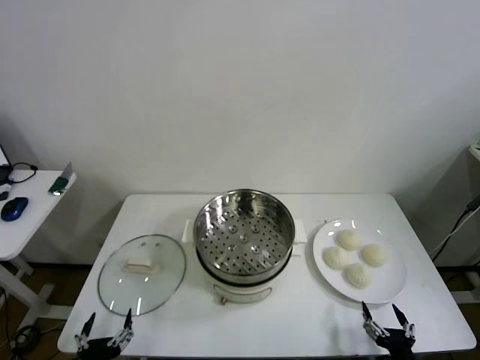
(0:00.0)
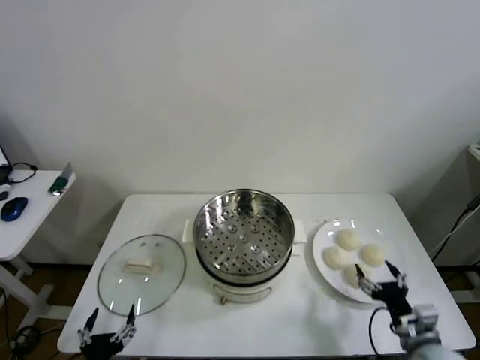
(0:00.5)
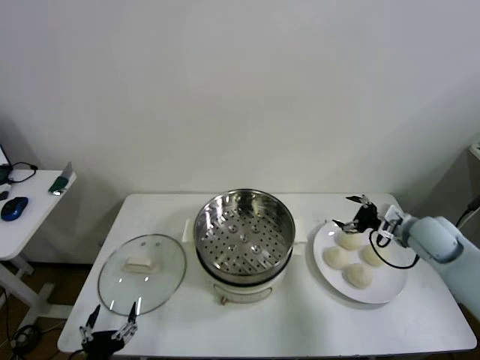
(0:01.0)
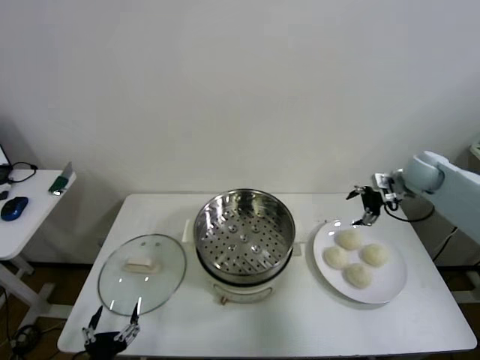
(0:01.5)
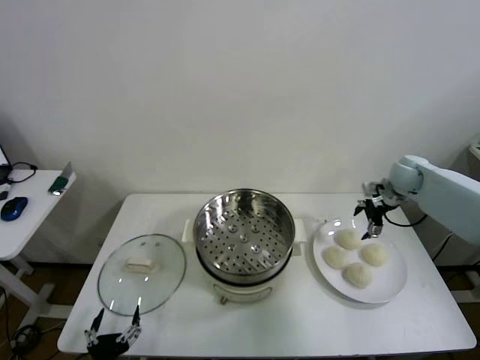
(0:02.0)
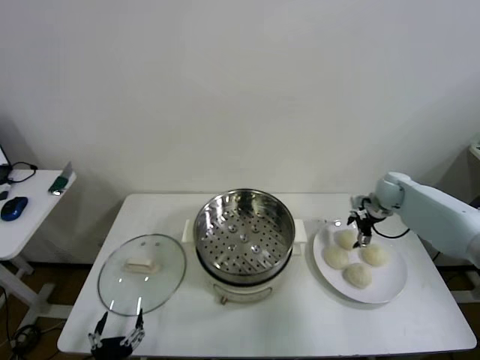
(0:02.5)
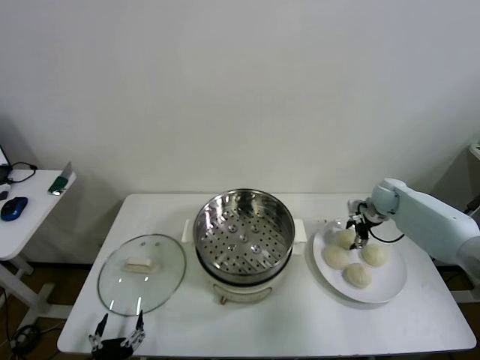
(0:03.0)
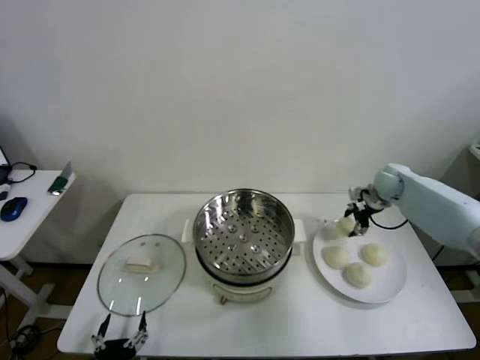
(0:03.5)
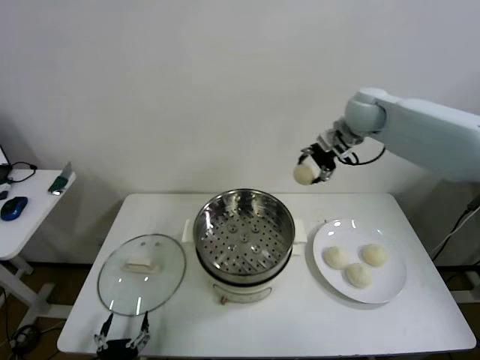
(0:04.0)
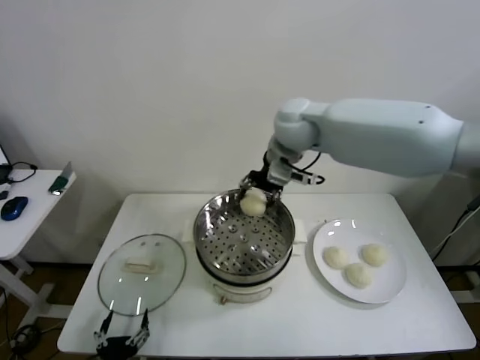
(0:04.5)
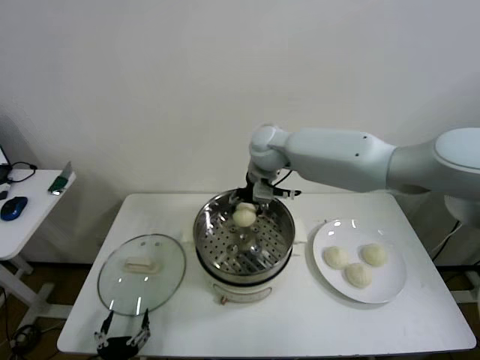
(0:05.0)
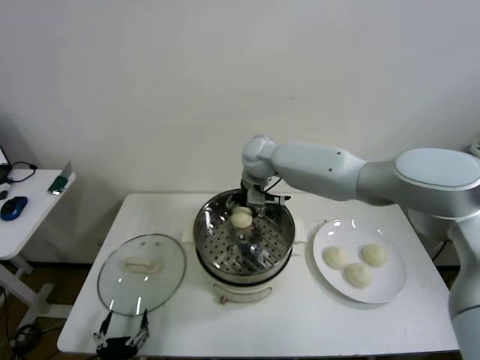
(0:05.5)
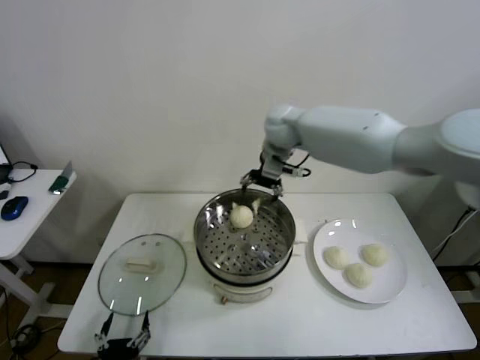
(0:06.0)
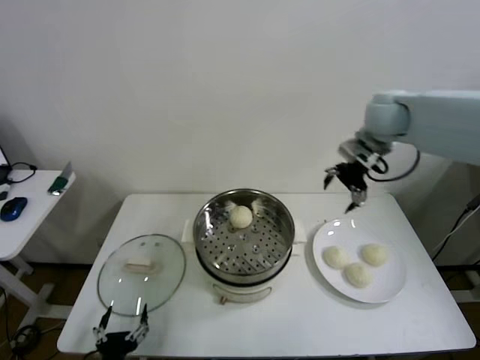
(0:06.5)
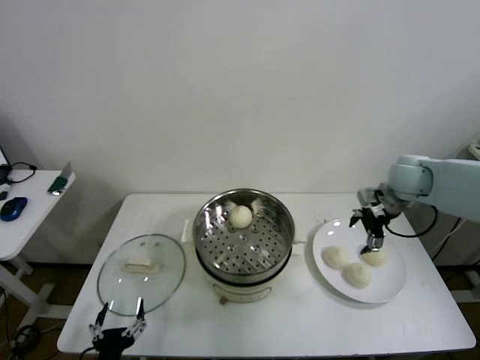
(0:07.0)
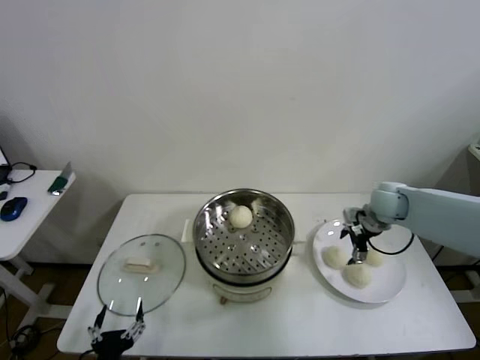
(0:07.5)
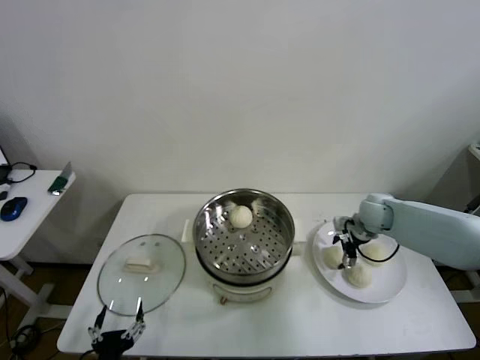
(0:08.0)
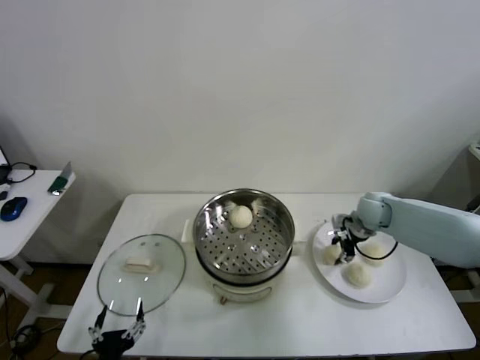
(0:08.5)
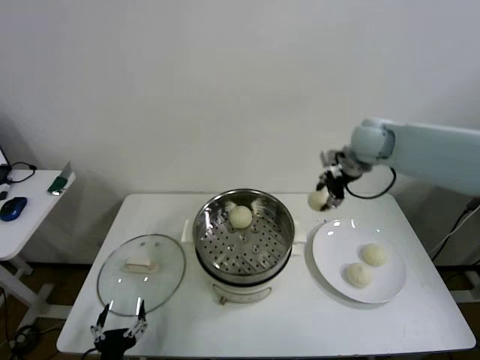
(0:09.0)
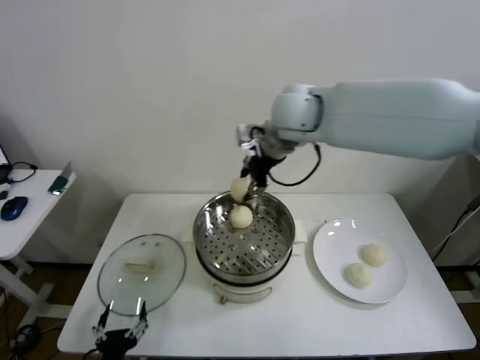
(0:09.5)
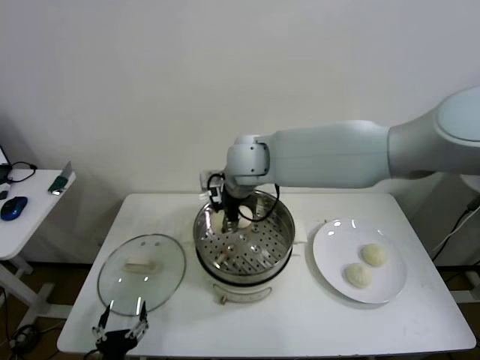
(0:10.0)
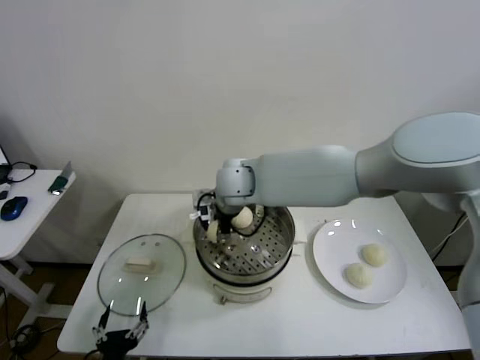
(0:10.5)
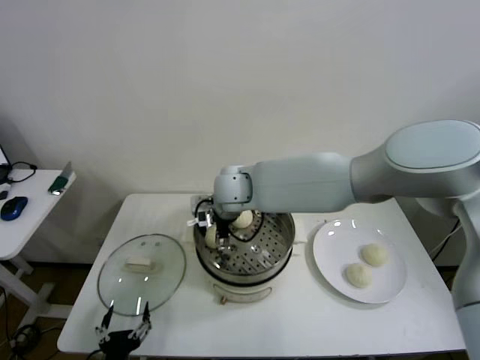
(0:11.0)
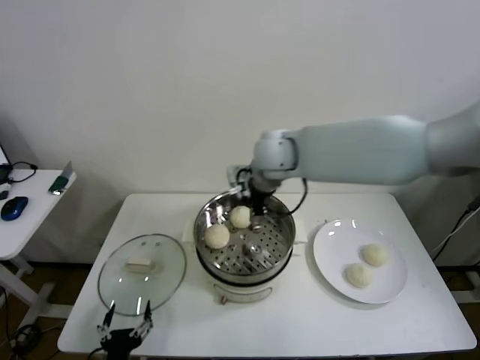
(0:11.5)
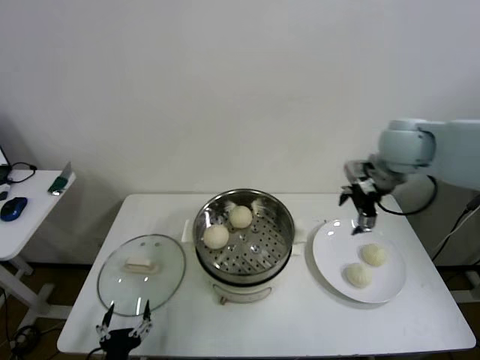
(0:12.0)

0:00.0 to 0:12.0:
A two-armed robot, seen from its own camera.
Step, 0:00.0 to 0:03.0: Grasp the baozi in the plate with right gripper.
Step, 0:03.5 to 0:05.5: Place the baozi on the steamer with right gripper.
Step, 0:06.0 to 0:08.0: Grasp the baozi in the plate with right gripper.
Step, 0:08.5 to 0:11.0: Place the baozi on the steamer with right gripper.
0:02.0 to 0:04.0: The right gripper heads upward and to the left, covering some 30 cm, and closes.
0:04.0 to 0:06.0: The right gripper moves to the left, approximately 10 cm, and opens up.
0:06.0 to 0:08.0: The right gripper is displaced downward and to the right by approximately 35 cm.
0:08.0 to 0:10.0: The right gripper shifts about 40 cm to the left and upward, and closes its fingers.
0:10.0 to 0:12.0: The right gripper is displaced to the right by approximately 30 cm, and opens its fingers.

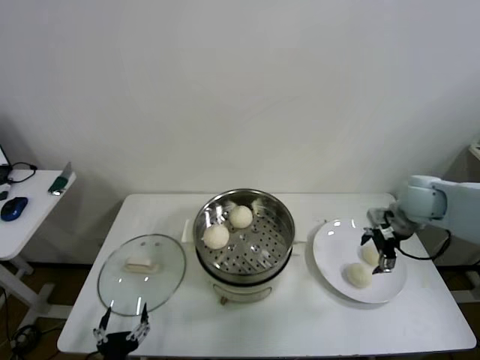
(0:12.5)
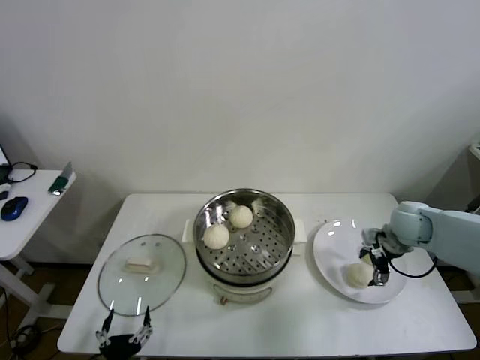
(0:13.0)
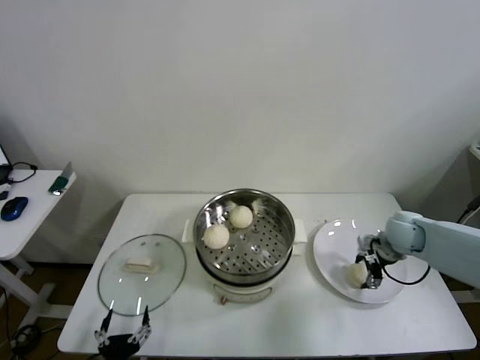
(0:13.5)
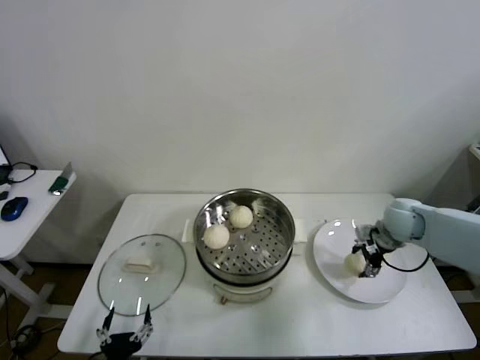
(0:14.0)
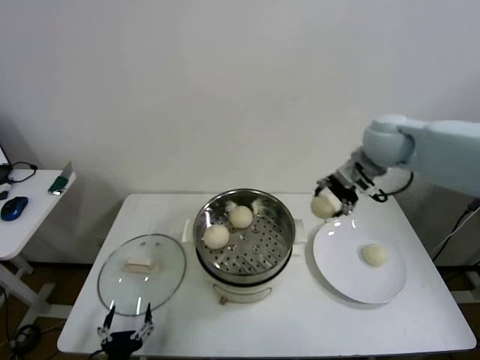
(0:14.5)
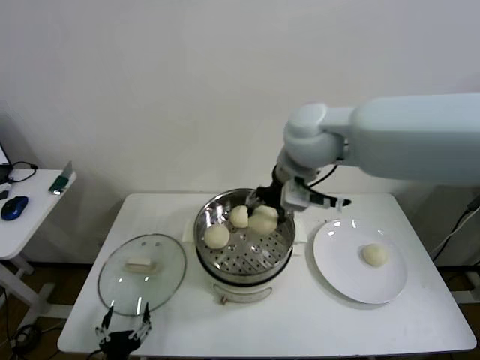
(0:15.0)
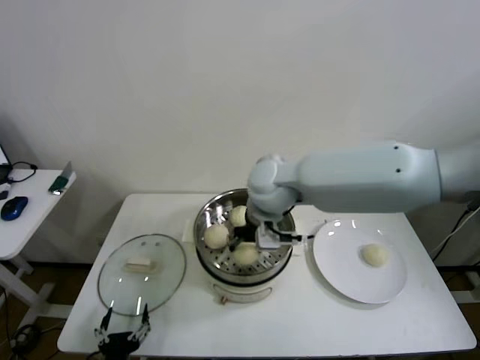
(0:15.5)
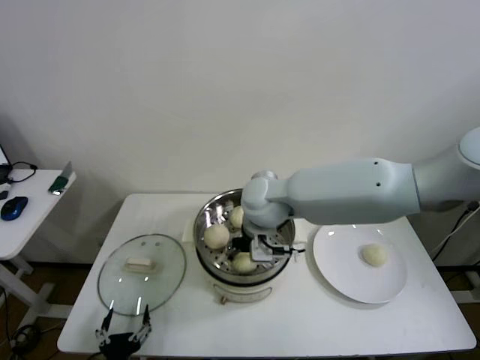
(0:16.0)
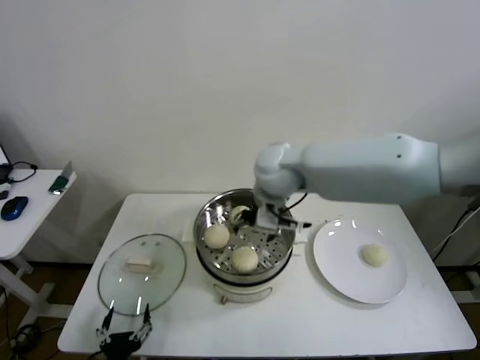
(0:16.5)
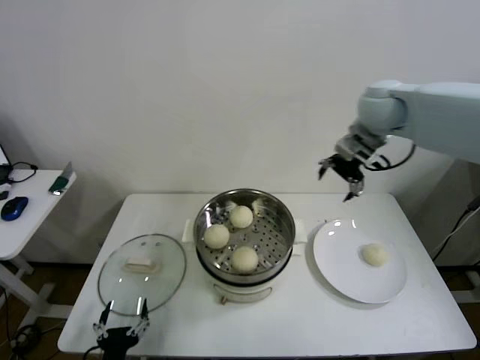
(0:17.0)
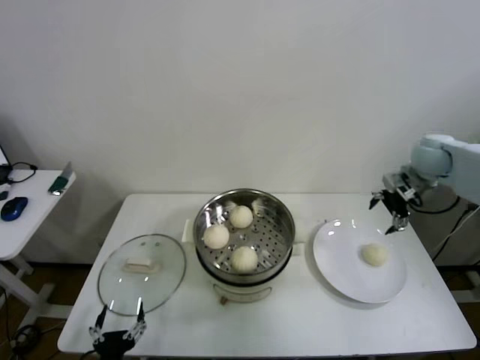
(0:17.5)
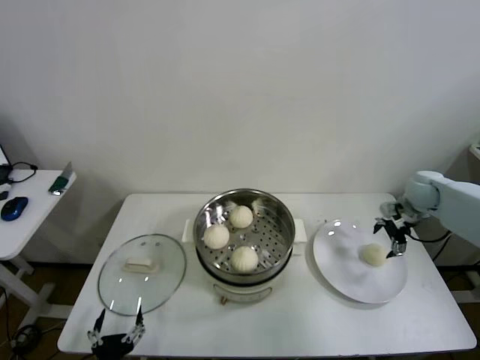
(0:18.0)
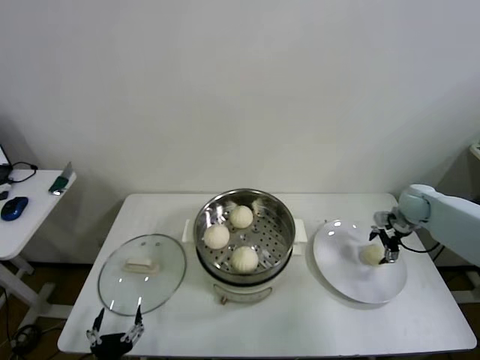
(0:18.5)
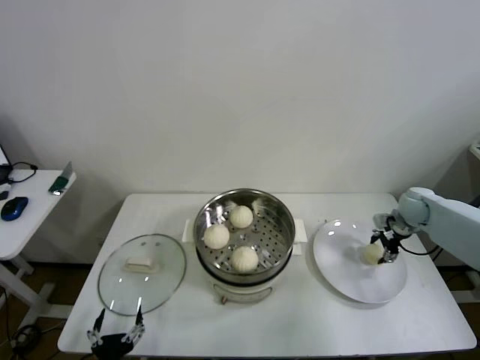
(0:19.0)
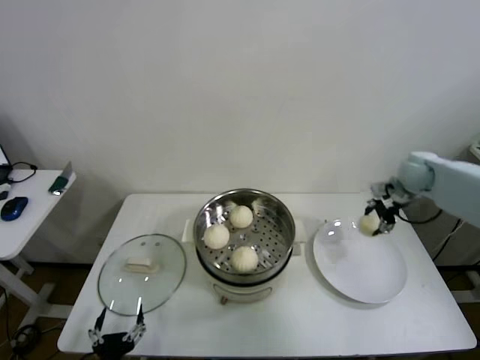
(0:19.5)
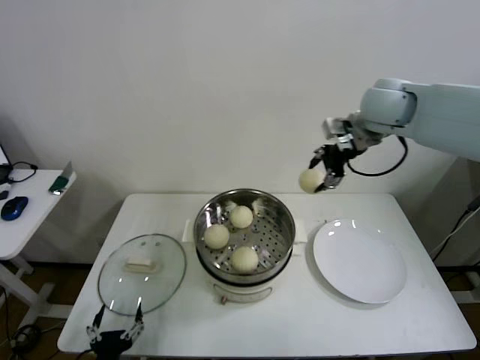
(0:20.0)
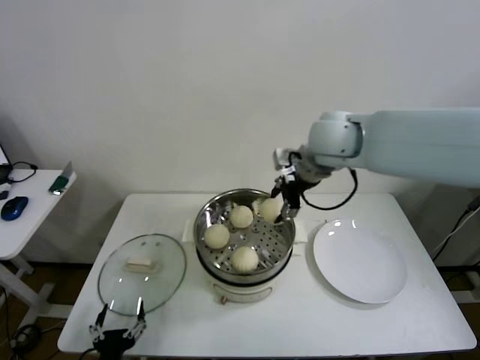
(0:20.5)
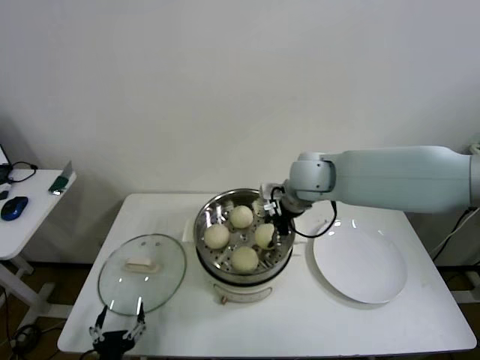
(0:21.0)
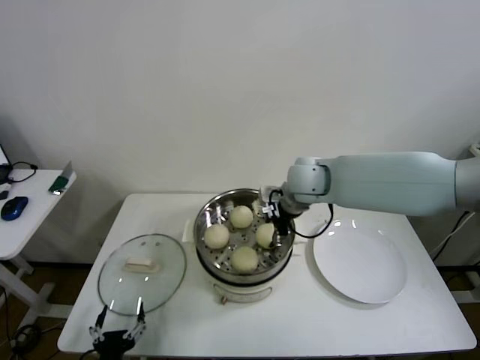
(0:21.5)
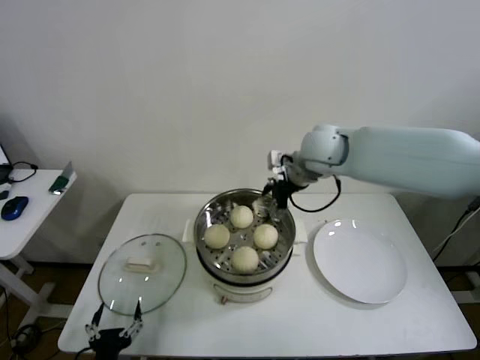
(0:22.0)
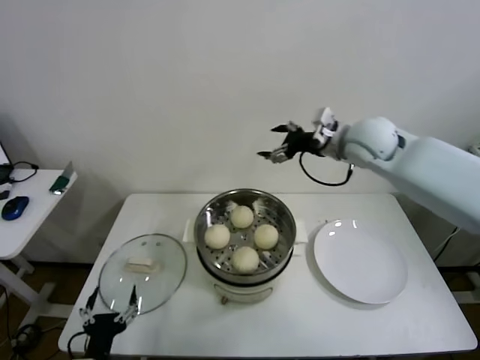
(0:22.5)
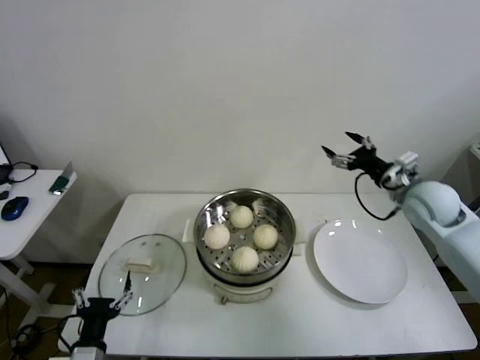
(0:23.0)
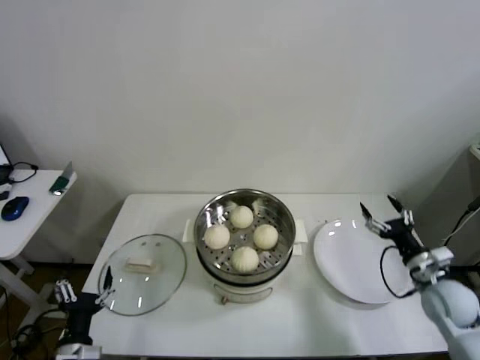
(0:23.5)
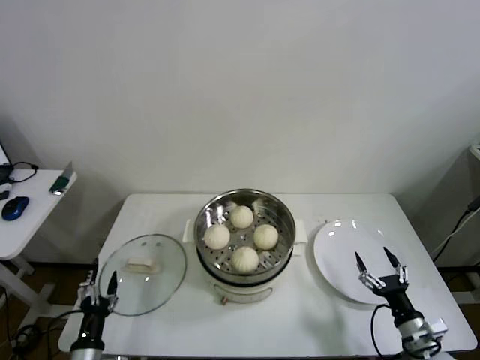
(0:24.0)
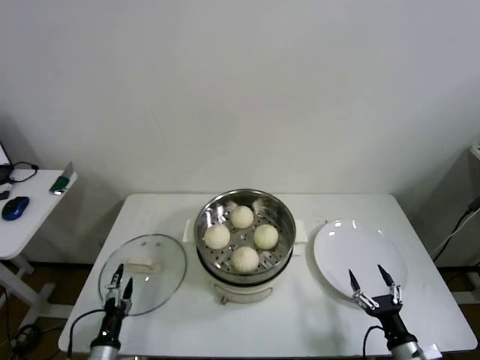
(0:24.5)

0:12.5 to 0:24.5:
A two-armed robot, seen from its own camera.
Step, 0:14.0 to 0:16.0: Place the baozi on the steamer with right gripper.
Step, 0:16.5 to 0:18.5: Grasp the baozi in the plate with right gripper.
Step, 0:19.0 to 0:21.5: Place the baozi on the steamer with right gripper.
0:12.5 to 0:14.5: The right gripper is displaced upward and to the left by approximately 20 cm, and closes its fingers.
0:14.5 to 0:16.5: The right gripper moves to the left, some 20 cm, and opens.
0:16.5 to 0:18.5: The right gripper heads to the right and downward, covering roughly 40 cm.
0:18.5 to 0:20.5: The right gripper is displaced to the left and upward by some 40 cm, and closes.
0:20.5 to 0:22.5: The right gripper heads to the right, covering about 10 cm, and opens up.
0:22.5 to 0:24.5: The left gripper heads downward, covering roughly 10 cm. The right gripper travels downward and backward by about 50 cm.

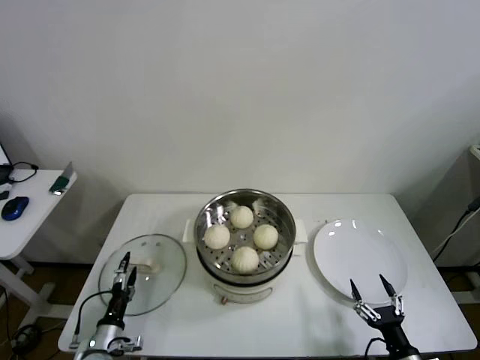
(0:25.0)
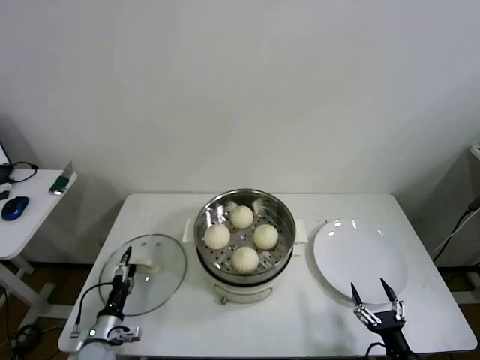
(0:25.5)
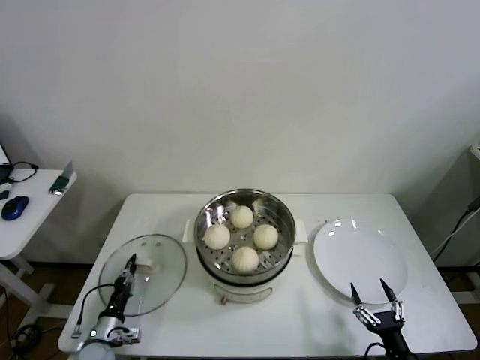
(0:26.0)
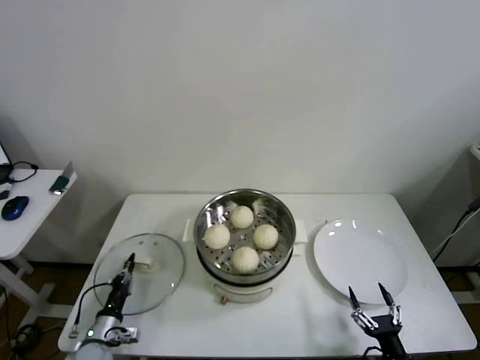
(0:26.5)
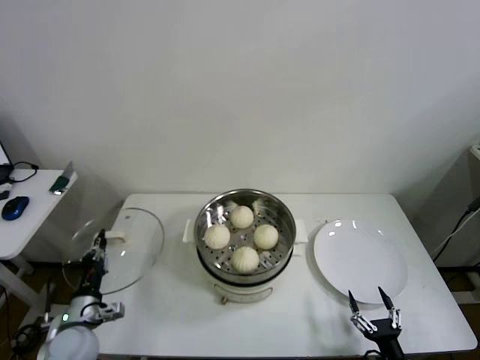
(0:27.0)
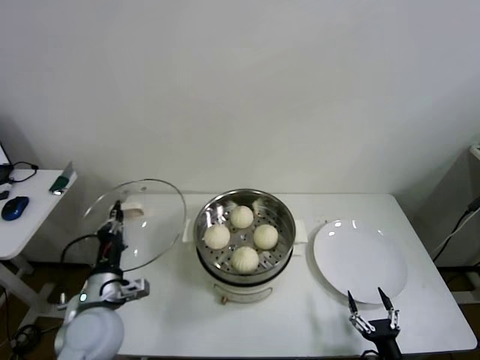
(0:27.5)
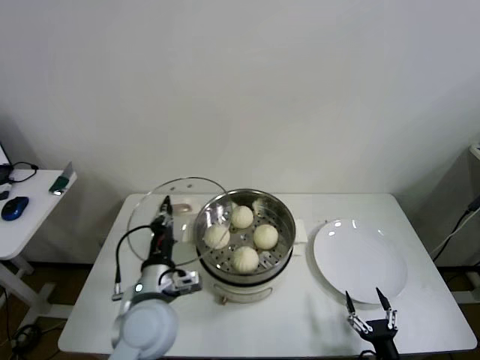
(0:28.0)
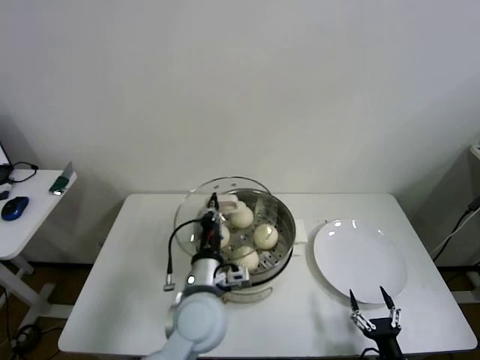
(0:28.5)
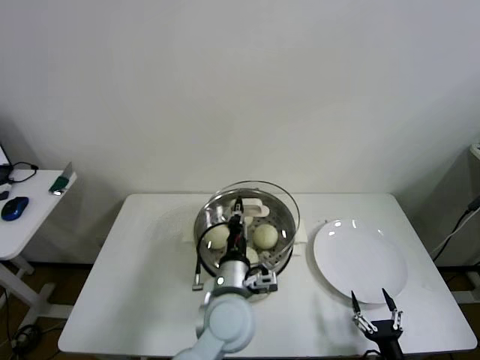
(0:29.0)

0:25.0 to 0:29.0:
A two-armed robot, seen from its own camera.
0:25.0 to 0:27.0: The left gripper moves upward, about 10 cm, and closes its fingers.
0:27.0 to 0:29.0: The left gripper travels to the right by about 35 cm.
